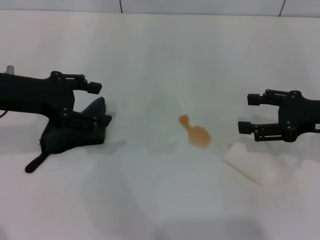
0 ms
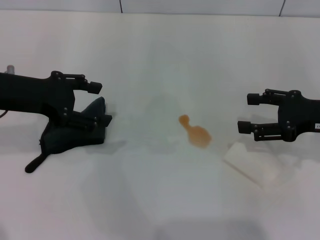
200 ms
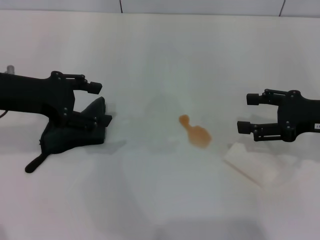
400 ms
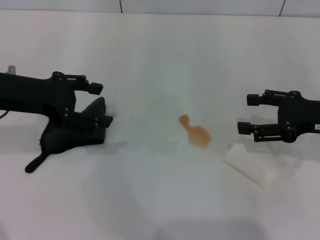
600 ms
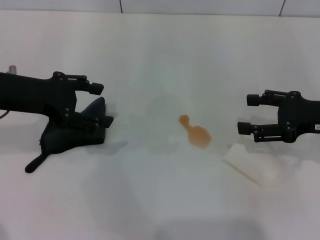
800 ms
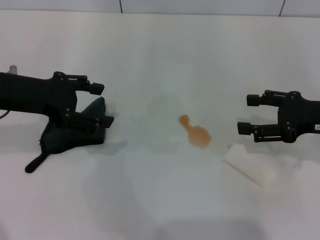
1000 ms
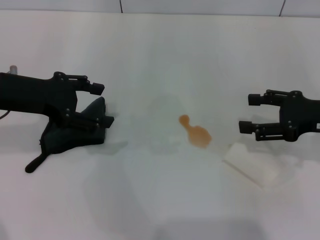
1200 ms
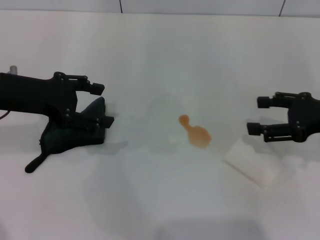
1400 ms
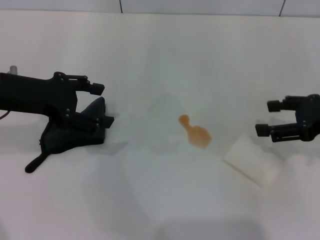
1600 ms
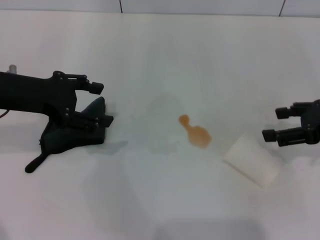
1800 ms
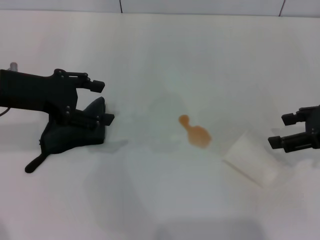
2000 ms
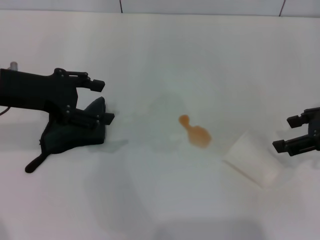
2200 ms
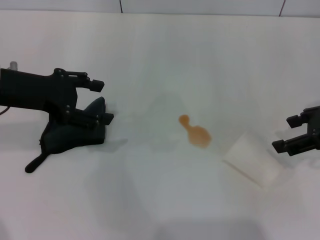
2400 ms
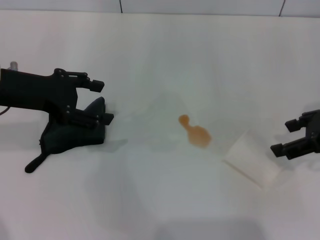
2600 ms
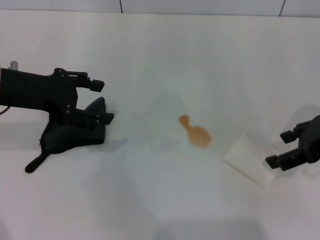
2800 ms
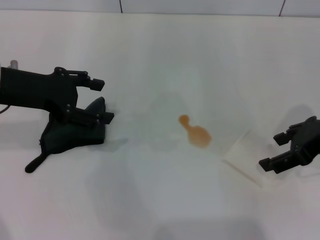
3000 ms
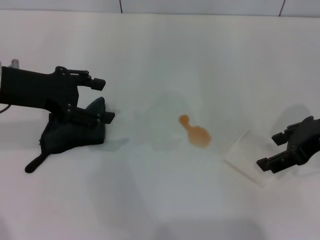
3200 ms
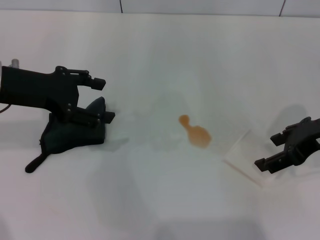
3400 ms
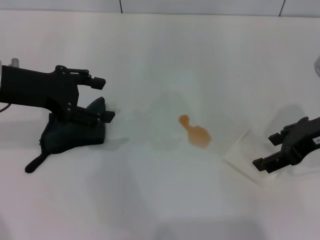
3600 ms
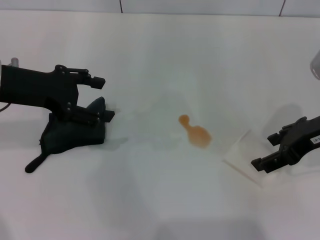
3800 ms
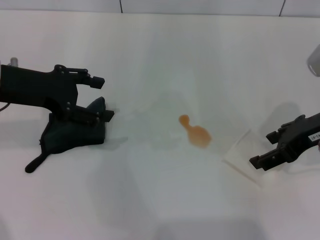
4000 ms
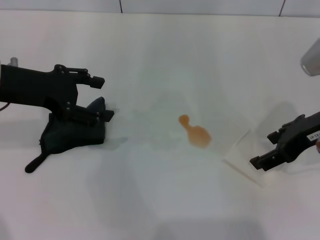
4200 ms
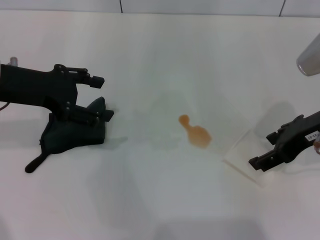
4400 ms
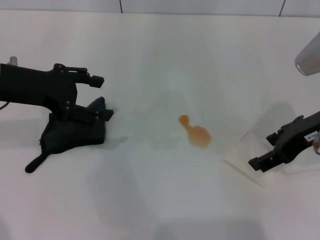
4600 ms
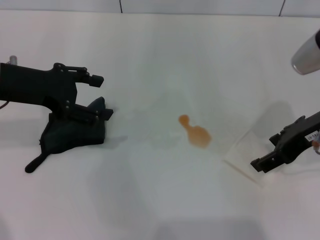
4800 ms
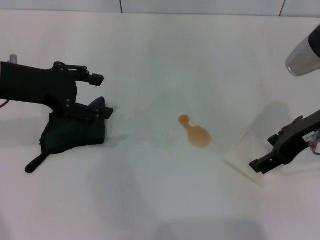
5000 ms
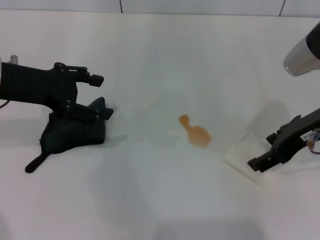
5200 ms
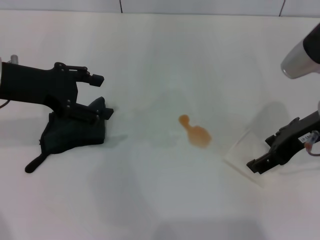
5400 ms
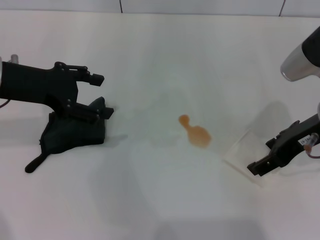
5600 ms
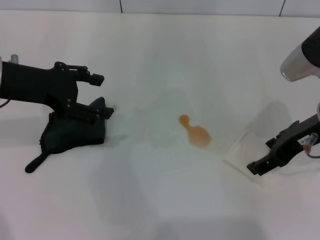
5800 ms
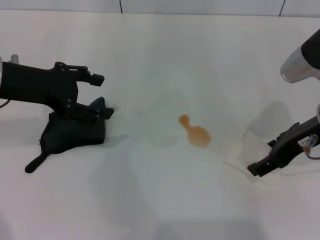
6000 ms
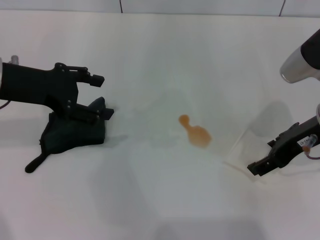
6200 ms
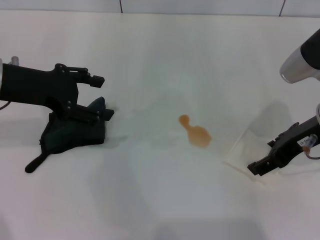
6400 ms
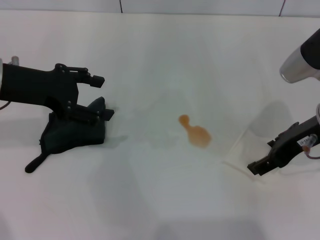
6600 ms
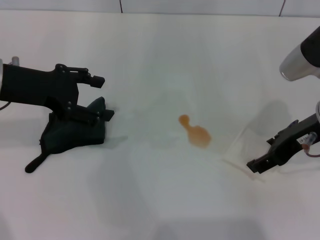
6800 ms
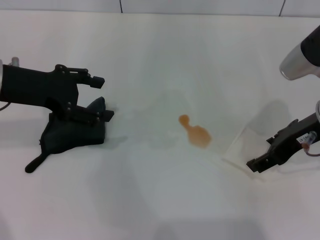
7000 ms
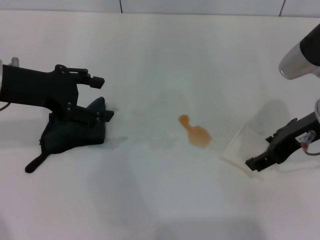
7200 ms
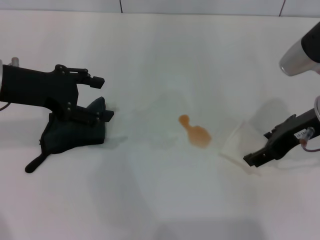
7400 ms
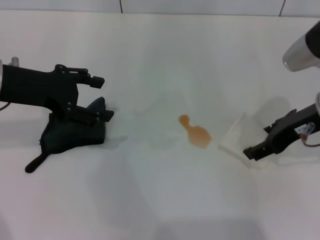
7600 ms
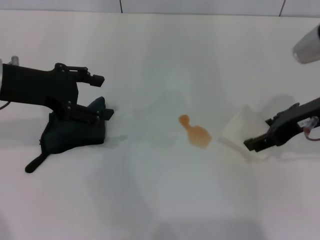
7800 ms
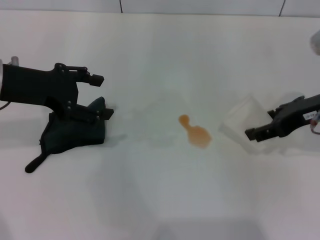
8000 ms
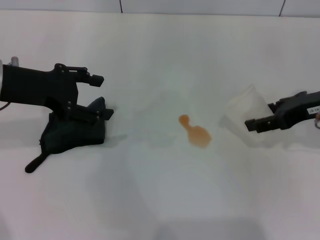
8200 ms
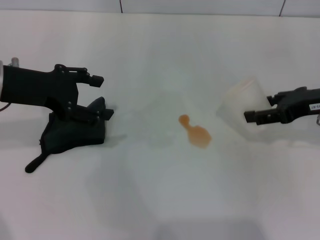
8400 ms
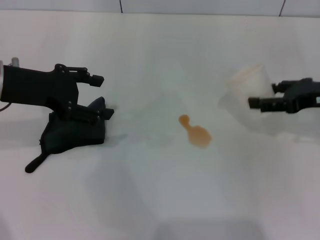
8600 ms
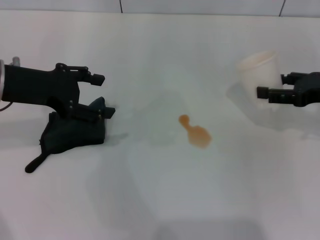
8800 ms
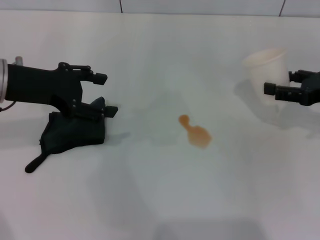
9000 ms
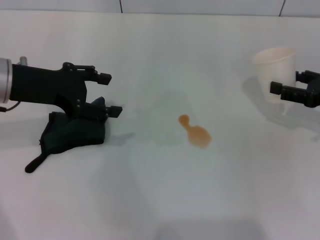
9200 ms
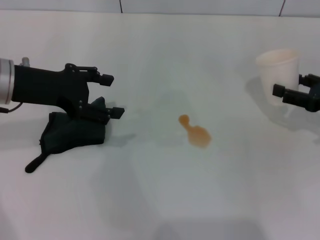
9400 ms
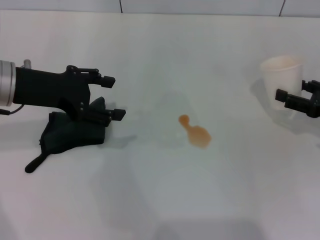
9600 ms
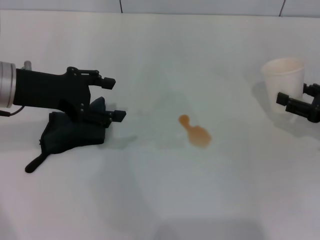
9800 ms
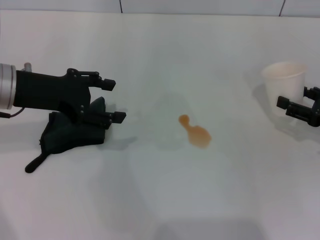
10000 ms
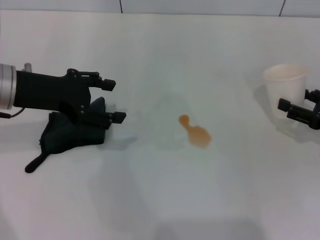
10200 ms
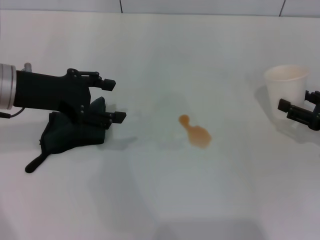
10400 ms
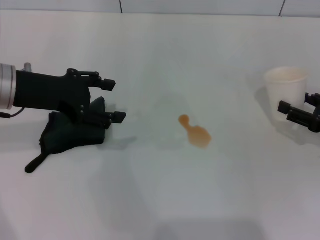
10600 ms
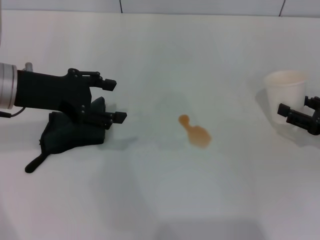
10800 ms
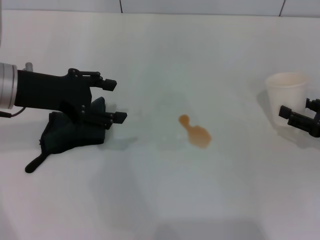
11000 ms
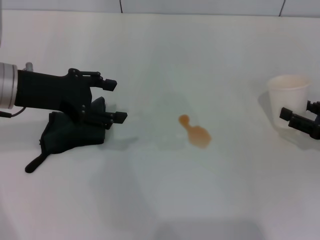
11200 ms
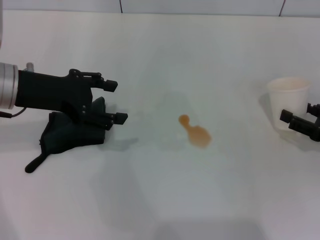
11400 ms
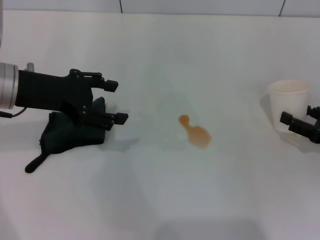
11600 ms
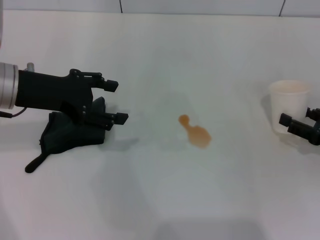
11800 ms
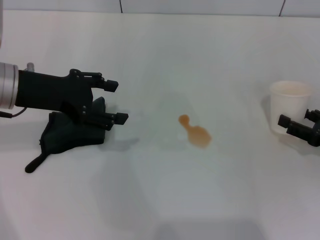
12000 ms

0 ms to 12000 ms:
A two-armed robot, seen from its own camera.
Step, 0 ms to 6600 ms: Grasp the paper cup with the right gripper.
0 ms to 1600 ms: The grippers make only small movements.
1600 ms to 3000 ms: The right gripper shifts by approximately 5 cm.
3000 ms to 6000 ms: There are only small adjustments of the grippers.
6000 ms to 7600 ms: Neither gripper changes place.
7600 ms to 9000 ms: The right gripper moves to the right and downward, about 10 cm.
9000 ms to 10400 ms: The right gripper heads downward, covering roughly 5 cm.
10400 ms to 12000 ms: The grippers stay close to where they were, moving slightly.

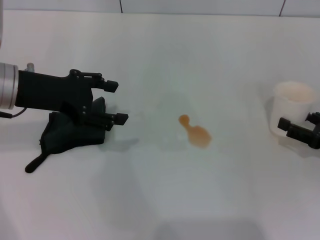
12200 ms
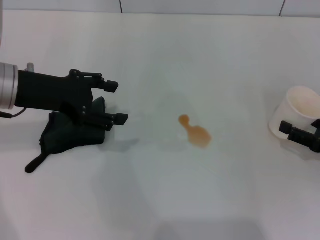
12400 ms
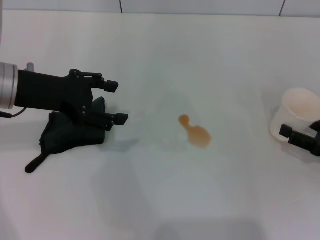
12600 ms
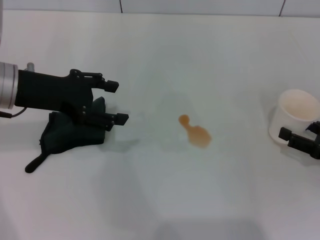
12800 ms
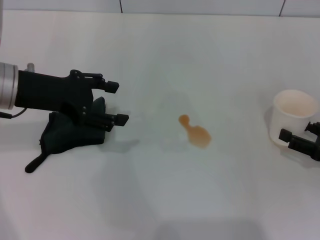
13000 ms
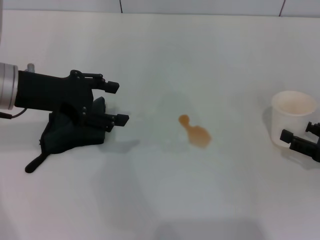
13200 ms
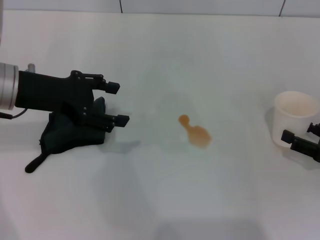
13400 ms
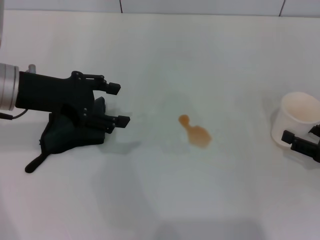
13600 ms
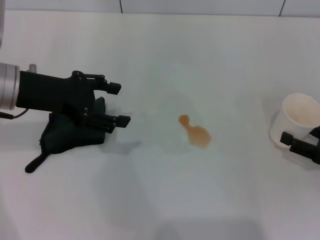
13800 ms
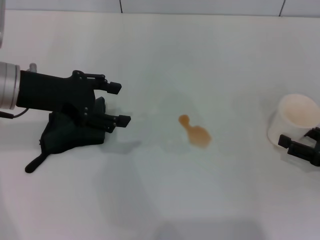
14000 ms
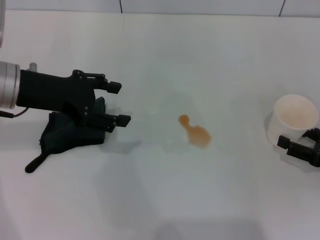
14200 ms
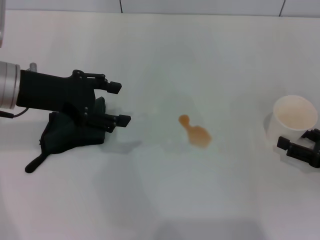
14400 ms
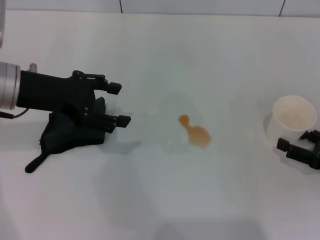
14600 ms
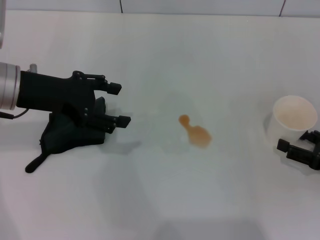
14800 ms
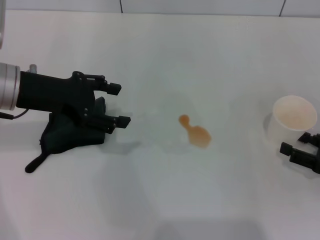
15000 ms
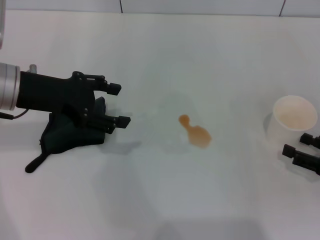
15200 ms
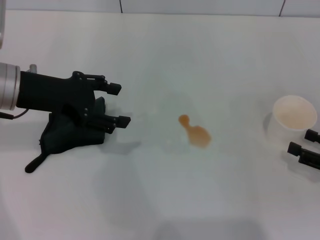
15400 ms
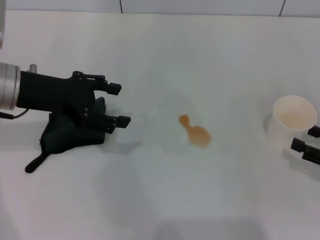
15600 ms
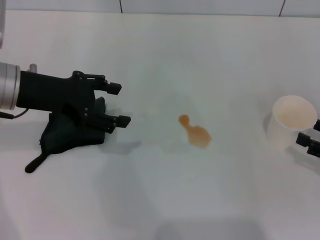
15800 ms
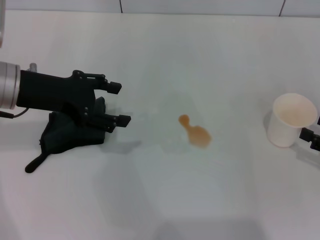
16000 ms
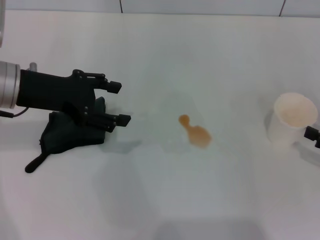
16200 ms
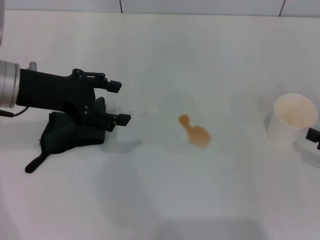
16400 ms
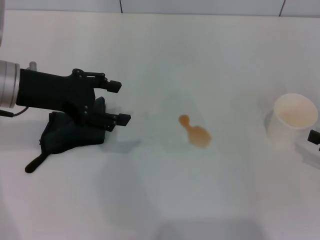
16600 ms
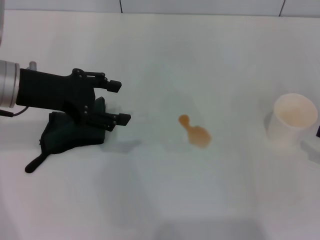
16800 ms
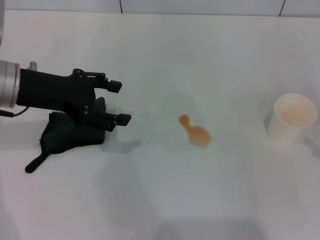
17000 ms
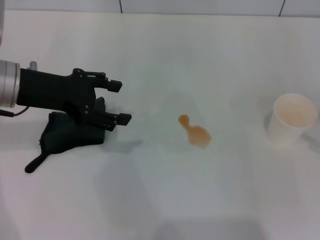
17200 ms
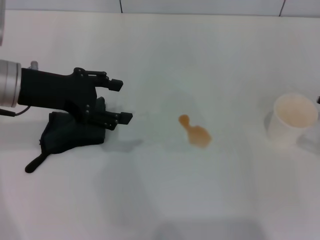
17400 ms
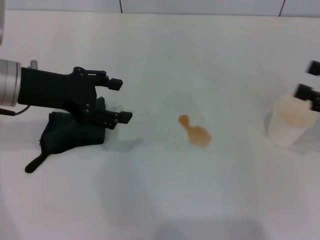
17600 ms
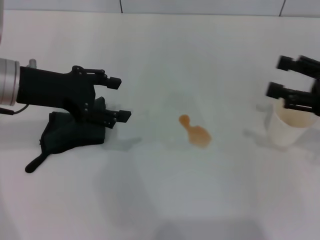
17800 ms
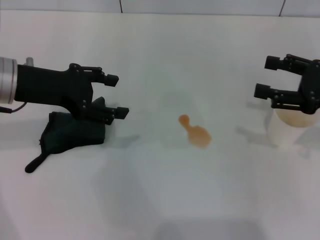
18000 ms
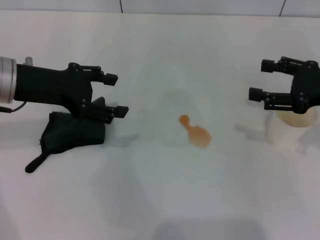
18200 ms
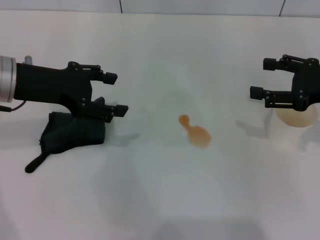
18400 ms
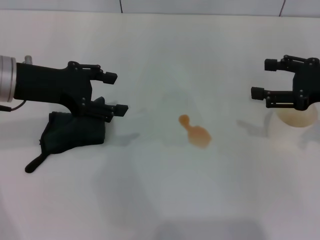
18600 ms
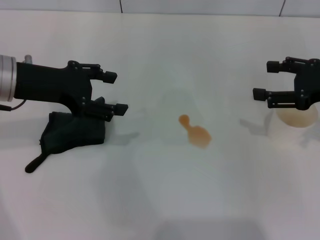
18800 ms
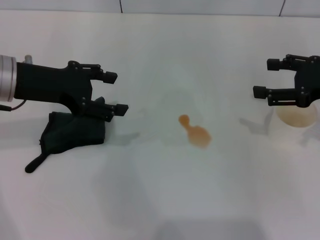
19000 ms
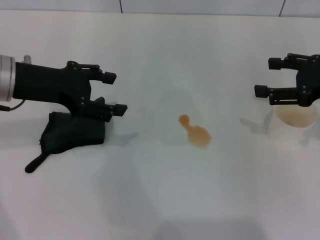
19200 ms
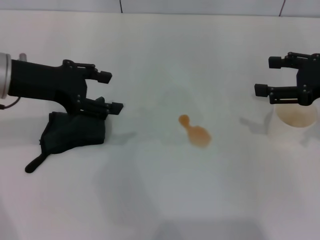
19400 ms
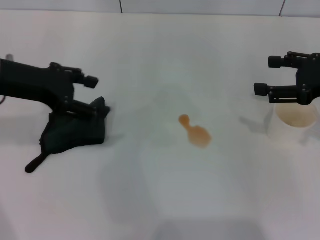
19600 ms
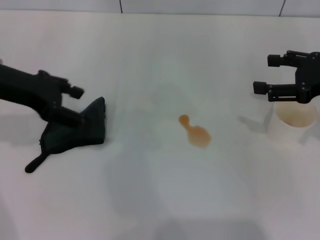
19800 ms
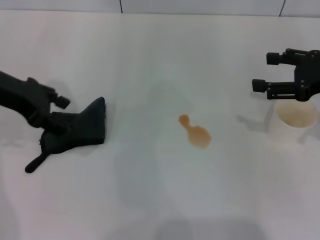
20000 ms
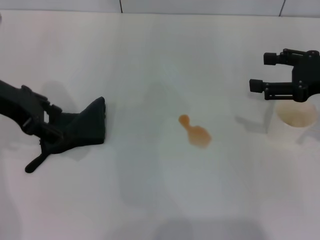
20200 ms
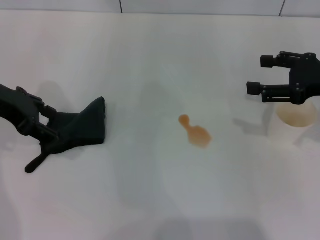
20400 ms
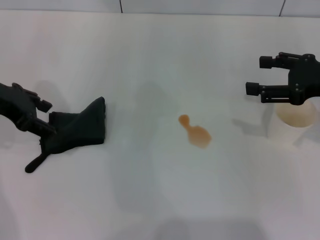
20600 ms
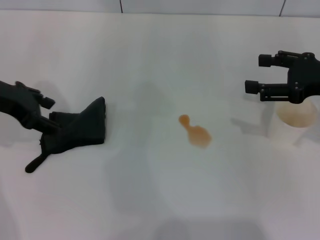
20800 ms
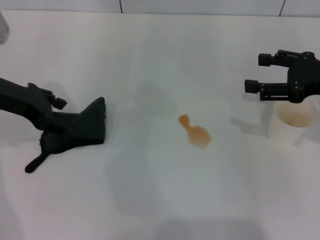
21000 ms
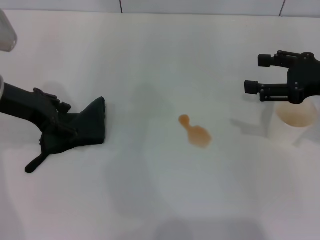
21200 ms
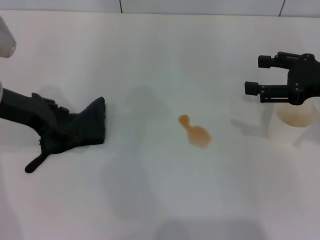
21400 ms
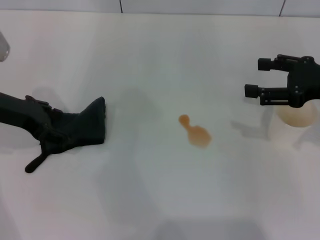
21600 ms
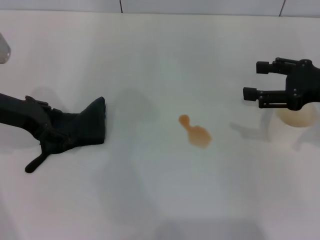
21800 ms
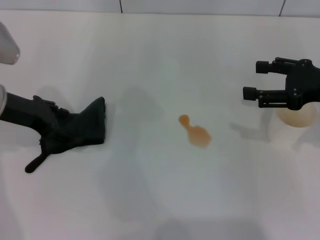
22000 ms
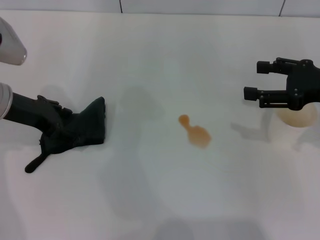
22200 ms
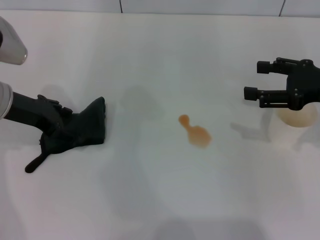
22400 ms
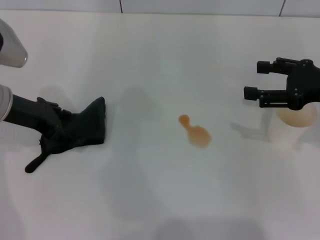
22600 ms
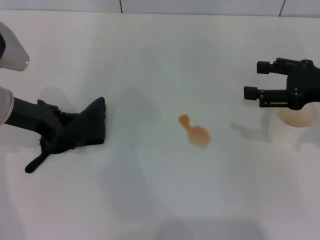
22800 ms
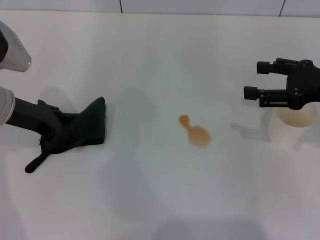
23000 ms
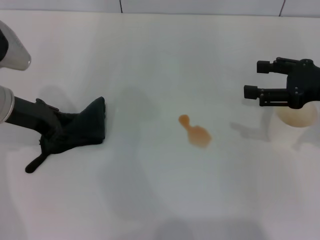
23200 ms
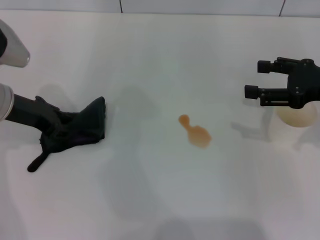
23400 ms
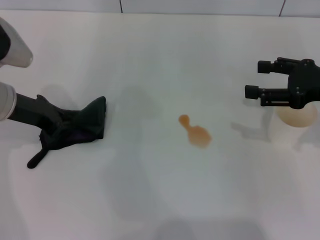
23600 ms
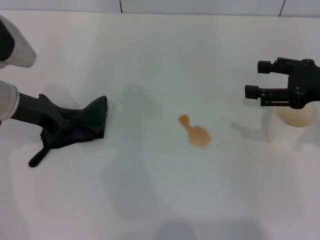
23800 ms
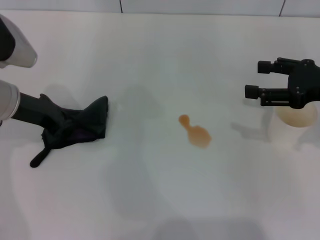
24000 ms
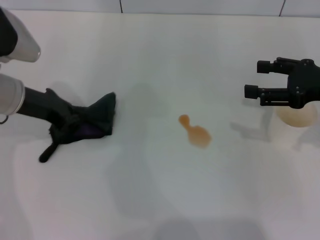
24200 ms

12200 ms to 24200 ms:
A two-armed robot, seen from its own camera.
Step, 12200 ms to 15400 ms: Stand the paper cup upright with the right gripper.
Step, 15600 ms to 23600 ms: Grasp the rag with the left gripper.
12200 ms to 13800 ms: The grippers make only small movements.
13800 ms to 15200 ms: Neither gripper changes place.
15200 ms to 16600 ms: The grippers move only a little.
16600 ms to 18200 ms: The right gripper moves forward, upward and to the left, some 15 cm.
18200 ms to 19800 ms: The grippers stay close to where they were, moving slightly.
19800 ms to 21200 ms: The grippers make only small movements.
21200 ms to 22600 ms: The grippers make only small movements.
22600 ms to 24200 ms: The left gripper closes up.
